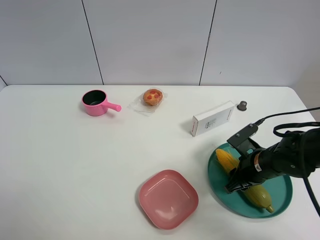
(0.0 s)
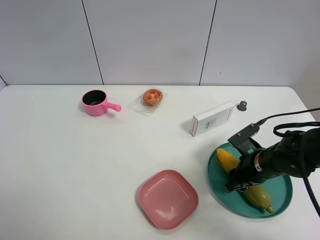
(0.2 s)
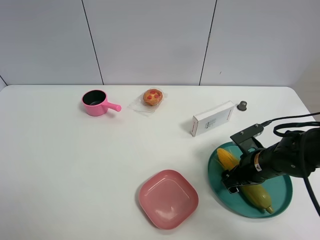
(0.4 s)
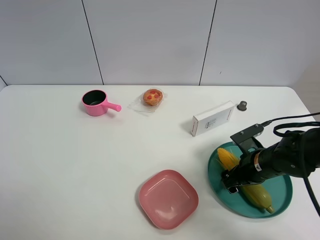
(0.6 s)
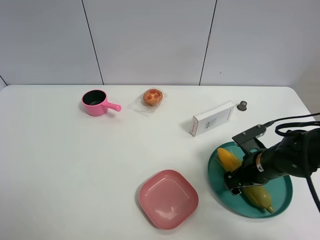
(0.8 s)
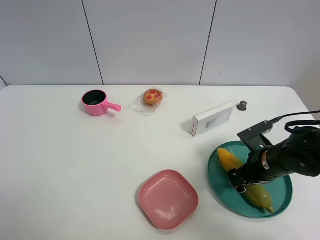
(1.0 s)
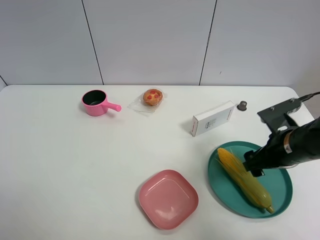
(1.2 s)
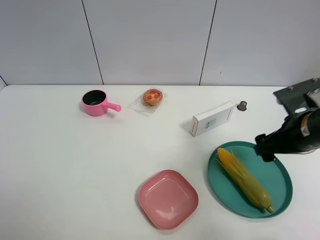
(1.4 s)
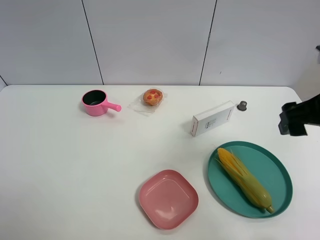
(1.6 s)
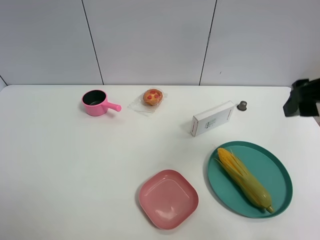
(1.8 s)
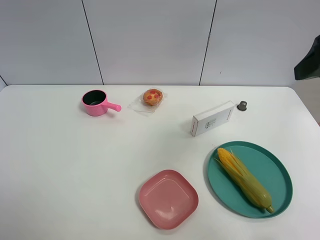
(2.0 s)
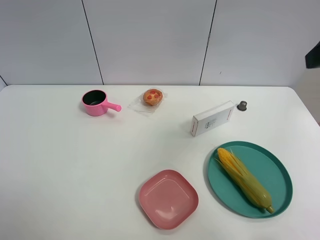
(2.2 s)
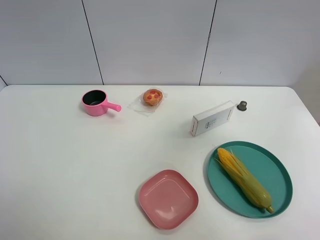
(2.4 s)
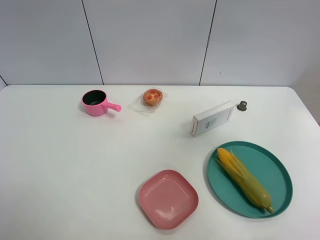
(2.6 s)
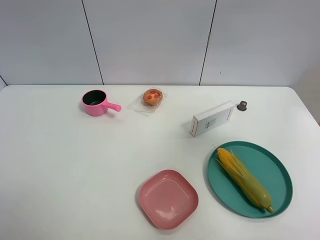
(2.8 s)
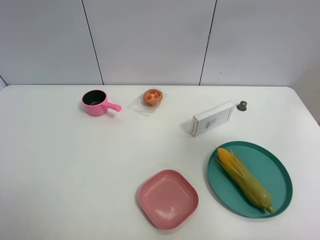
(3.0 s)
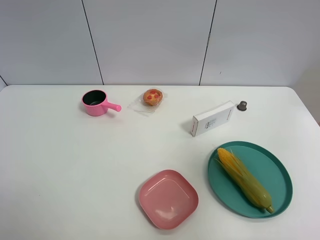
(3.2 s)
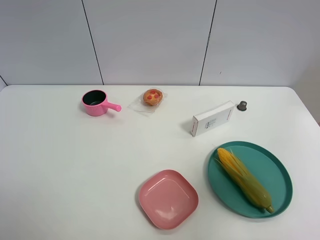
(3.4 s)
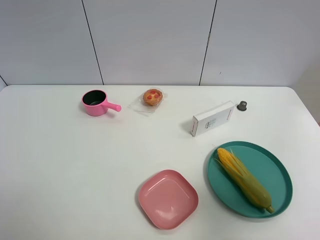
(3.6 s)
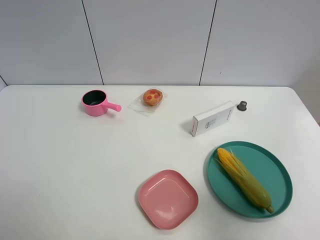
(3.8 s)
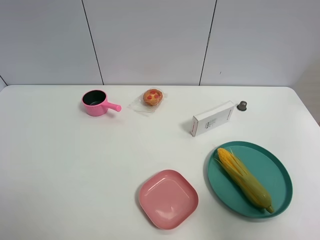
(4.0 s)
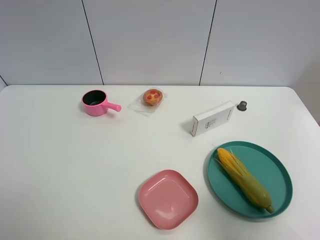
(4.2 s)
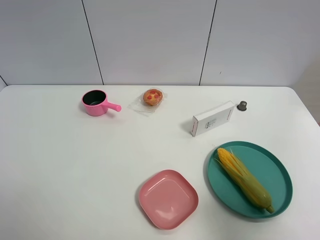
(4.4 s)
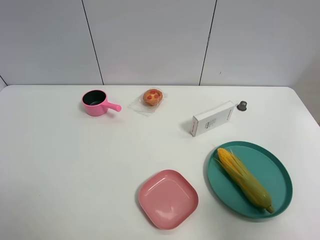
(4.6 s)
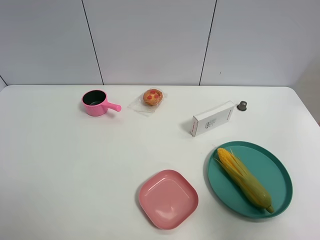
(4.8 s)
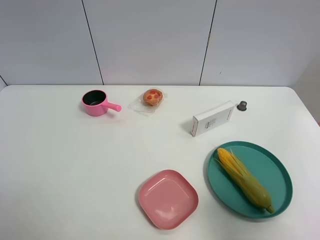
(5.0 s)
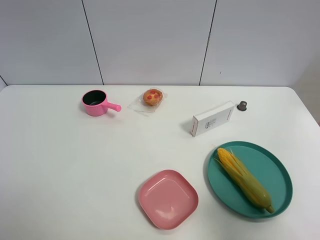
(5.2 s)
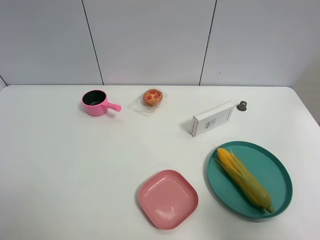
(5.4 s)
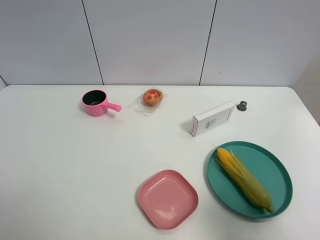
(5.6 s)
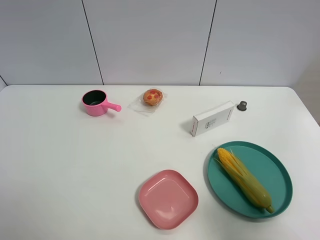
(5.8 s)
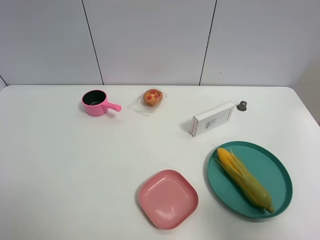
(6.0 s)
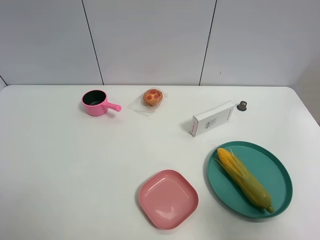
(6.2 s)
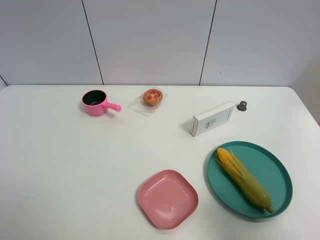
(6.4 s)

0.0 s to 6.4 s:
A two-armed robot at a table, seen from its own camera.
Task of the whole recording: the gripper move the object.
0.0 to 1.6 s: The right gripper shifts some 20 cm upward, and opens.
1.6 to 3.2 s: The right gripper is displaced upward, backward and to the right by roughly 15 cm.
3.2 to 4.8 s: The right gripper travels downward and backward by approximately 15 cm.
4.8 to 6.4 s: Both grippers stay put.

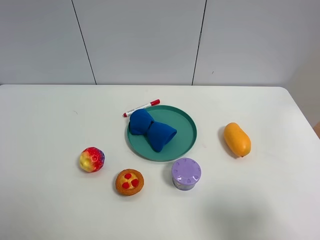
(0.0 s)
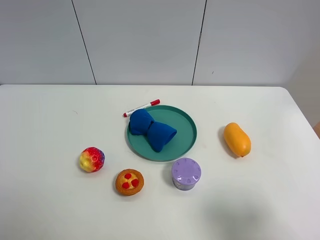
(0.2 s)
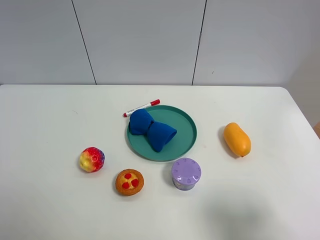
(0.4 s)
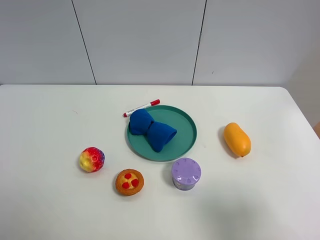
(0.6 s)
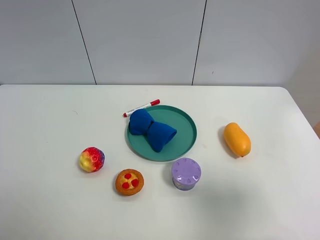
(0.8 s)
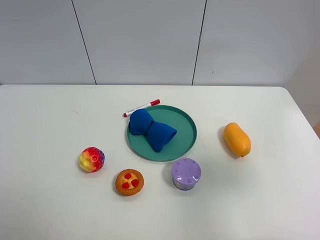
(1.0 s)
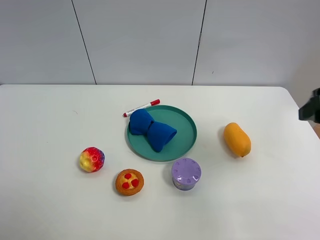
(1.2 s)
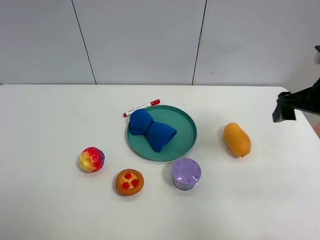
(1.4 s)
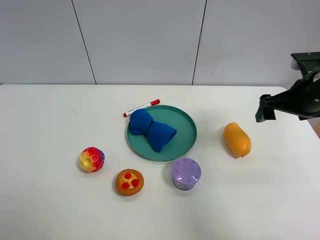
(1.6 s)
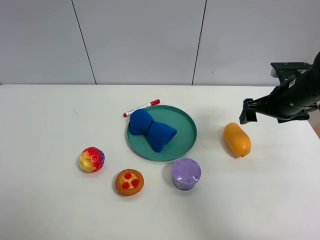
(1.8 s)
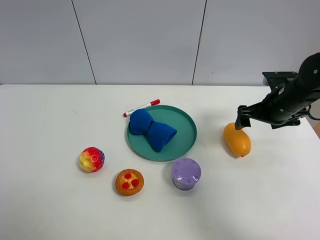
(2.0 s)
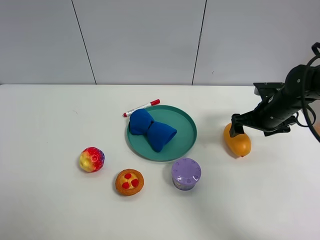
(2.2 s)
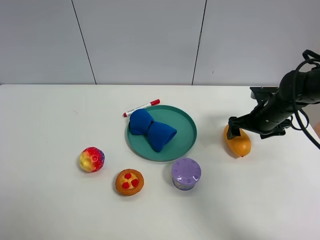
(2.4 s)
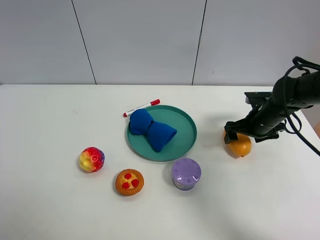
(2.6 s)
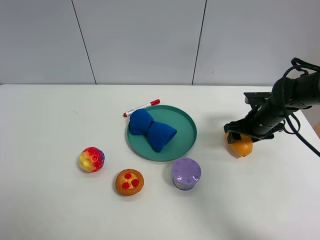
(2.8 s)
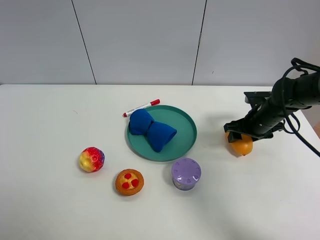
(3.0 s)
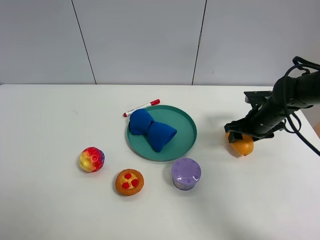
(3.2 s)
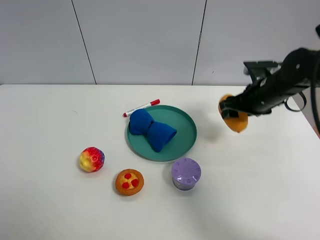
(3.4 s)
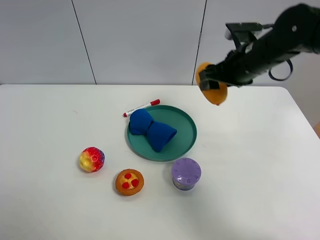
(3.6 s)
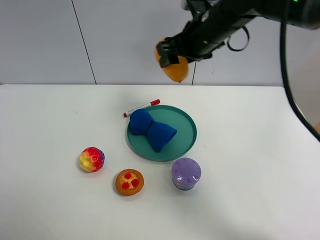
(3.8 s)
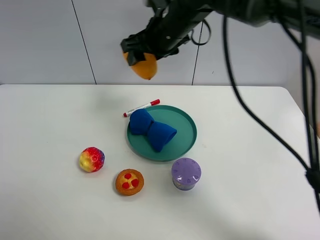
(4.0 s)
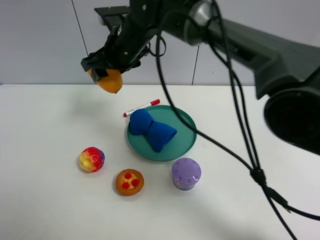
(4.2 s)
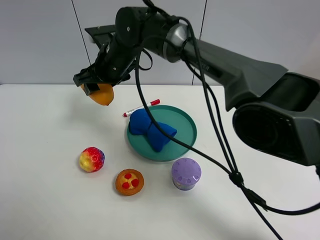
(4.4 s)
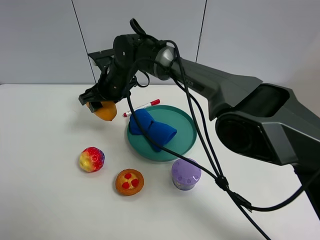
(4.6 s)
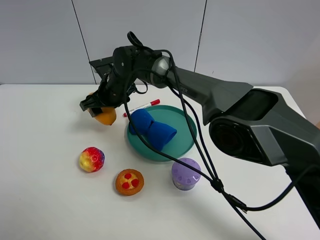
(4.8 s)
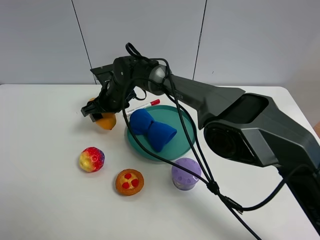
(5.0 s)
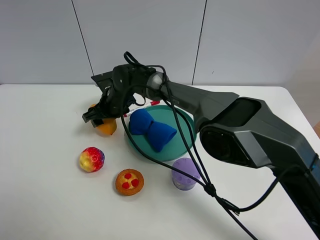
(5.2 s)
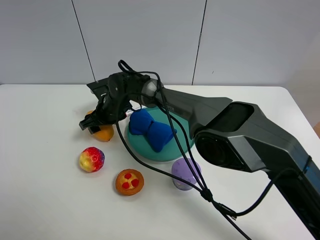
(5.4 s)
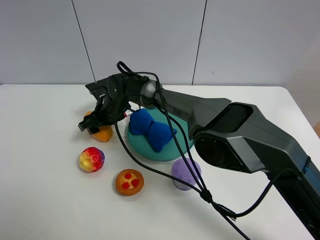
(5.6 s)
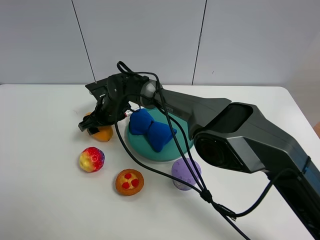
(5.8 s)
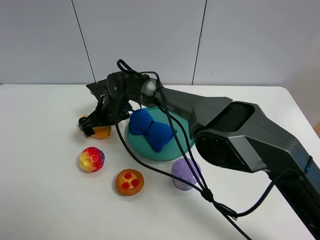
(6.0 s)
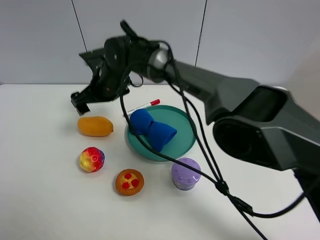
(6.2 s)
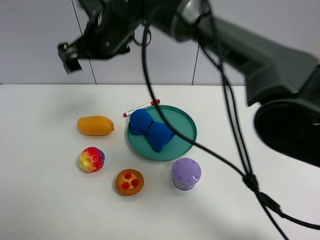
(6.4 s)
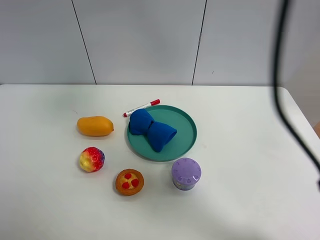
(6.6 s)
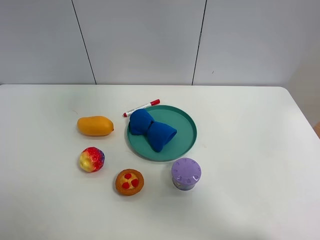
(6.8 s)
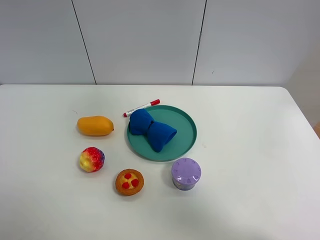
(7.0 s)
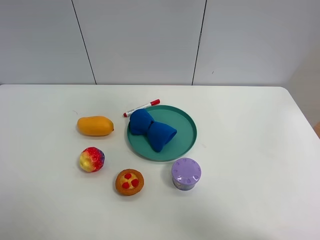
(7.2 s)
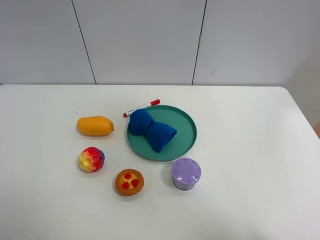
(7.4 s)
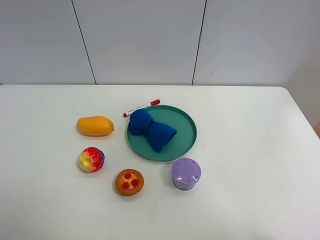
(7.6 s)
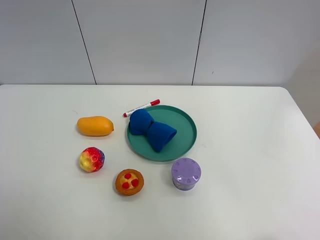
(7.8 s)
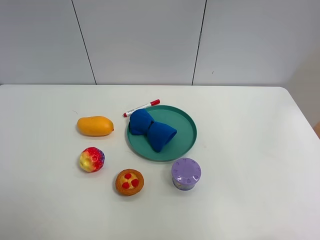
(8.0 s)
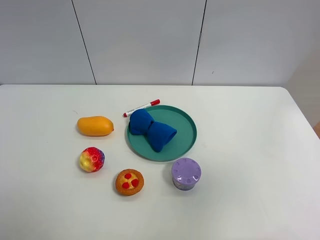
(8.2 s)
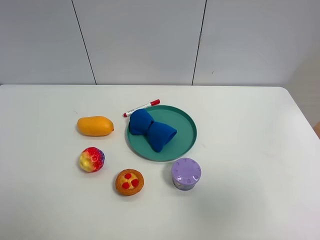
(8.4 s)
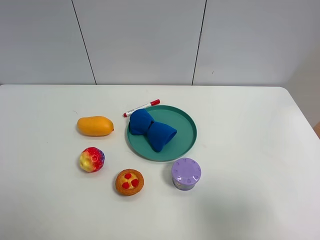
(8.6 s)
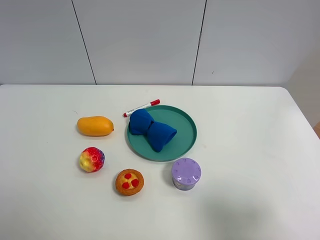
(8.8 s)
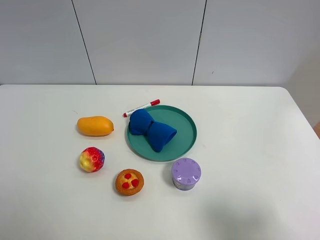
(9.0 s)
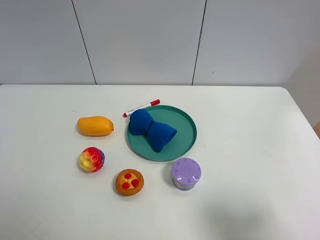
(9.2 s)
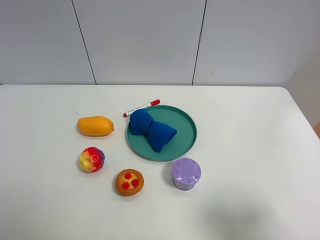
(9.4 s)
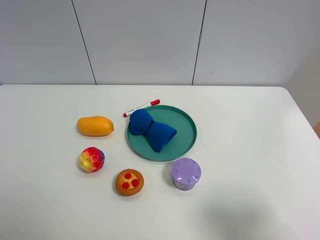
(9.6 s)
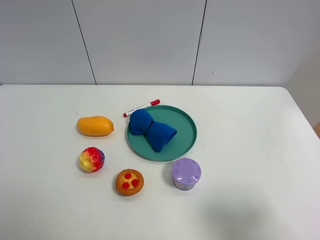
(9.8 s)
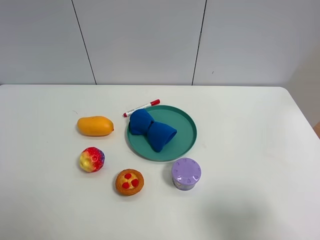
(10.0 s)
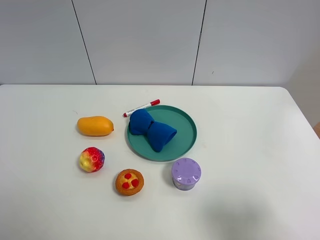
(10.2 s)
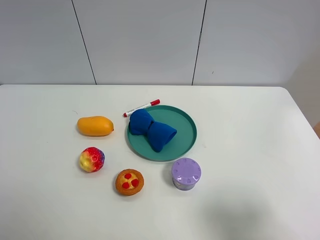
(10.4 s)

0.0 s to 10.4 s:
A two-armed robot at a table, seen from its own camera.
Task of the whole recording: the gripper move the object.
Step, 0.0 to 2.8 s: Grasp the mango with the right gripper.
Step, 3.0 to 6.0 s: Place the mango on the table with the right gripper.
0.0 to 1.4 s: The right gripper heads forward, covering roughly 25 cm.
1.4 to 3.0 s: The right gripper moves downward and forward, roughly 20 cm, and closes its fingers.
3.0 to 4.4 s: The right gripper moves to the left, about 35 cm.
4.4 to 6.0 s: The right gripper shifts some 10 cm downward, and opens.
6.0 to 7.4 s: The right gripper moves upward, to the right and backward, about 70 cm.
7.4 to 9.0 s: The right gripper is displaced downward by some 35 cm.

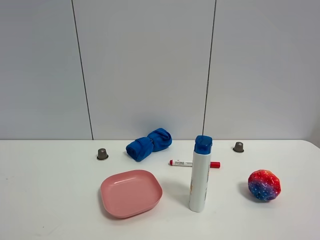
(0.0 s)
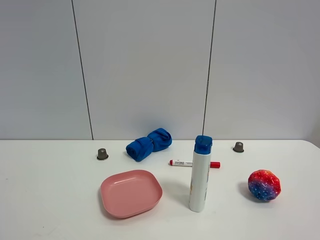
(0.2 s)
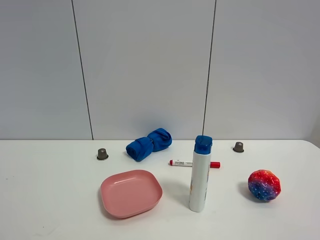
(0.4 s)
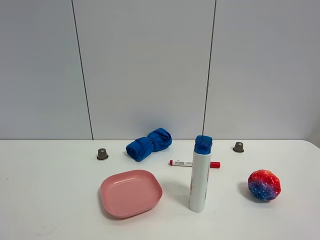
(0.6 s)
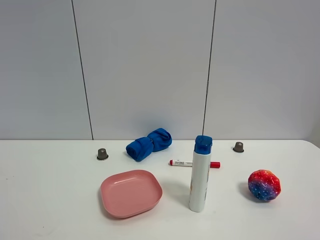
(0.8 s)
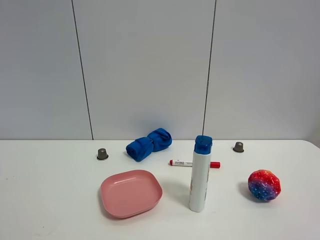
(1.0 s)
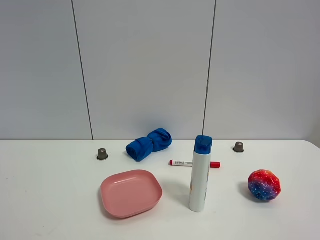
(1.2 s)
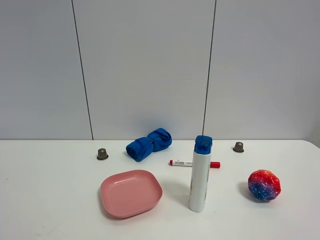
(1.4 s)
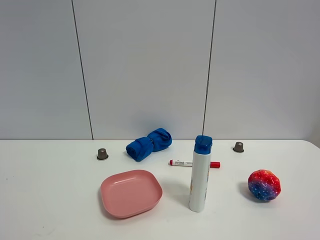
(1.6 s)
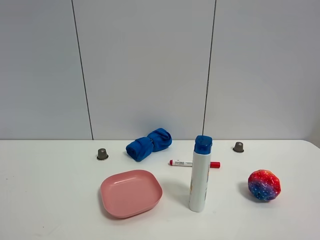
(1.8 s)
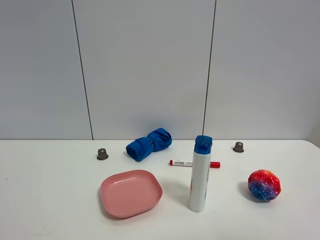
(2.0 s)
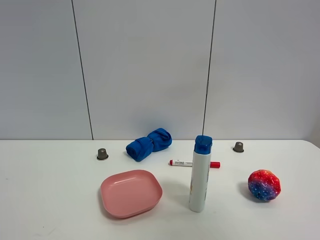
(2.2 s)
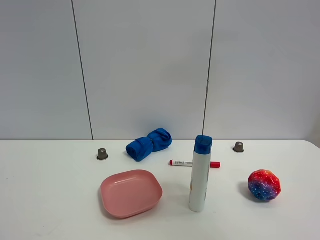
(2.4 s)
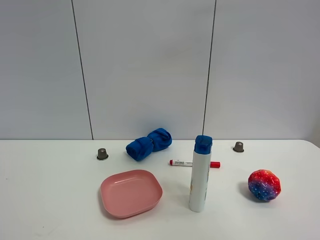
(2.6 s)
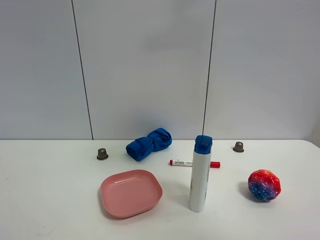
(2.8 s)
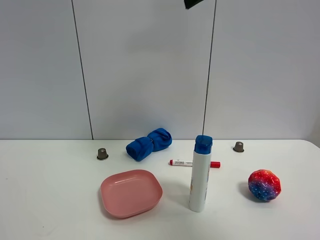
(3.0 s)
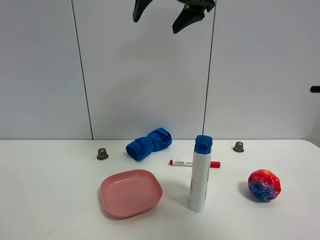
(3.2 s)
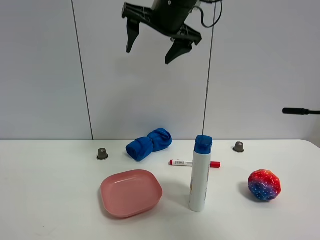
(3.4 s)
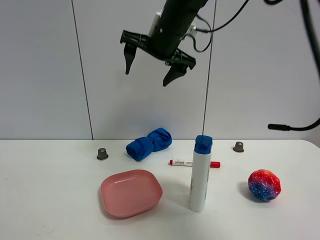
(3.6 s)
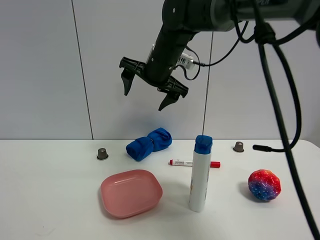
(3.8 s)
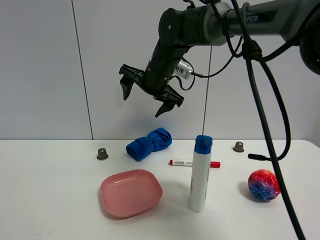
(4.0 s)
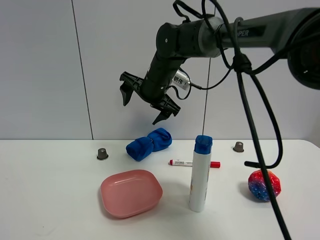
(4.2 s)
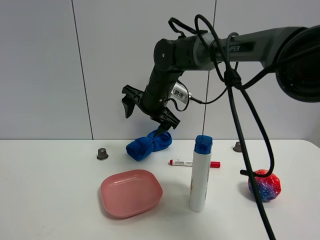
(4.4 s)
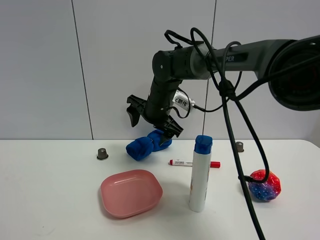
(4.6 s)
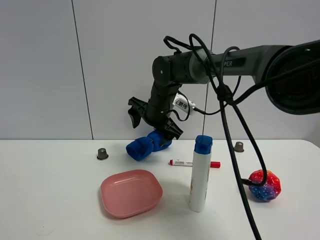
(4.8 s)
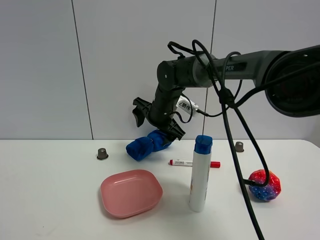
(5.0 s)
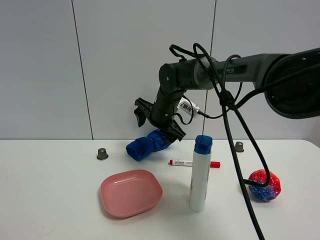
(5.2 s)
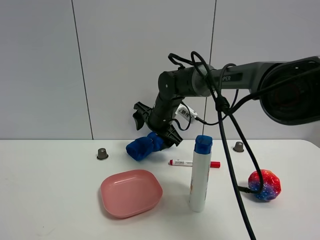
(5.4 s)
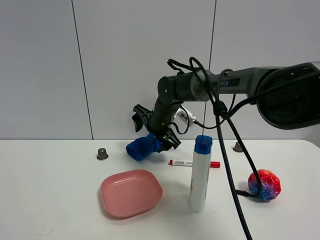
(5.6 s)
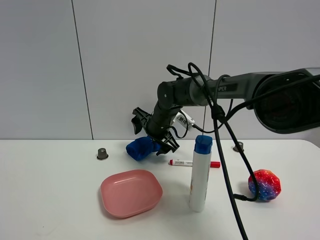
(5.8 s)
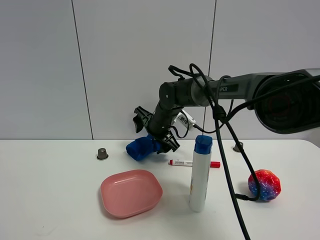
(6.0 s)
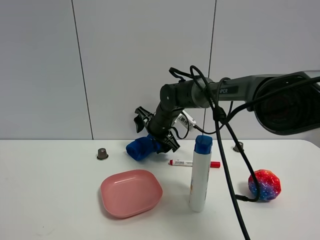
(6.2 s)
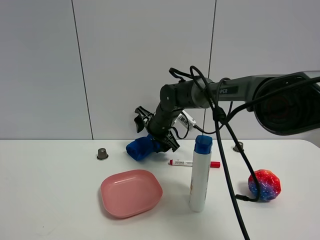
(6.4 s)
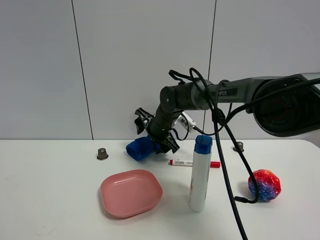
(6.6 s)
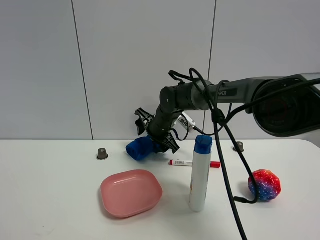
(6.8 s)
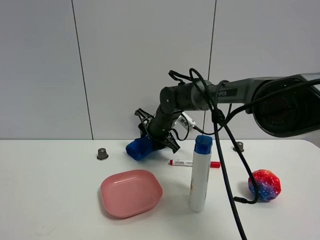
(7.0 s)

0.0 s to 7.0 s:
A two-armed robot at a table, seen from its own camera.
Task of the whole recording: the gripper move the object.
0.0 to 1.4 s: Both grippers stay put.
1.4 to 2.8 s: The right gripper moves forward, upward and to the left, some 40 cm.
2.8 to 4.2 s: The right gripper goes roughly 35 cm downward, forward and to the left.
4.2 to 5.6 s: The right gripper is displaced downward by about 10 cm.
5.6 to 7.0 s: The right gripper closes.
